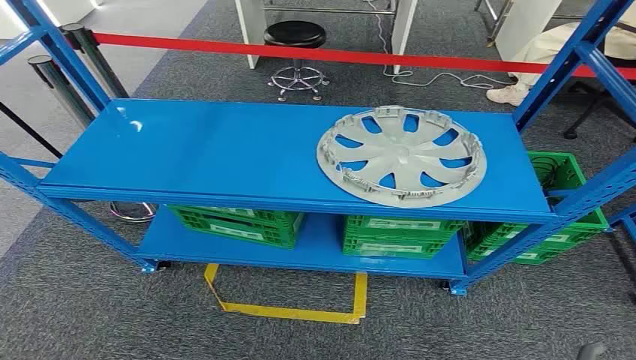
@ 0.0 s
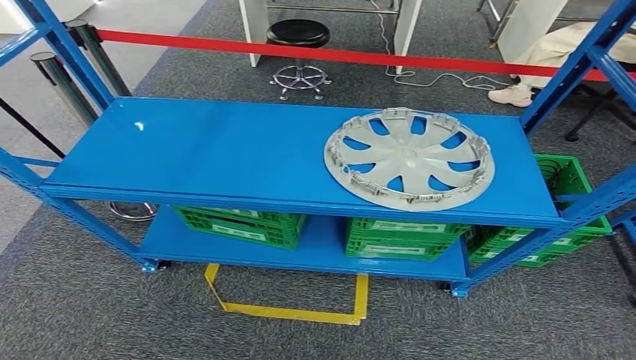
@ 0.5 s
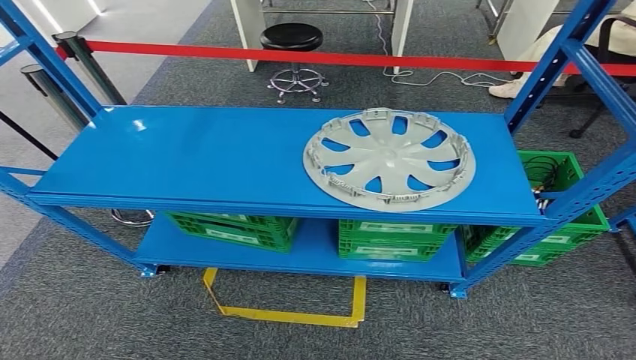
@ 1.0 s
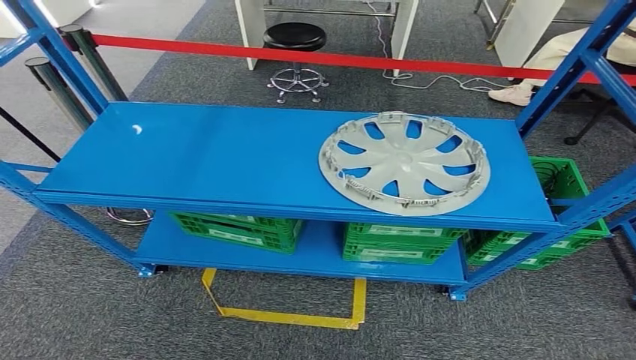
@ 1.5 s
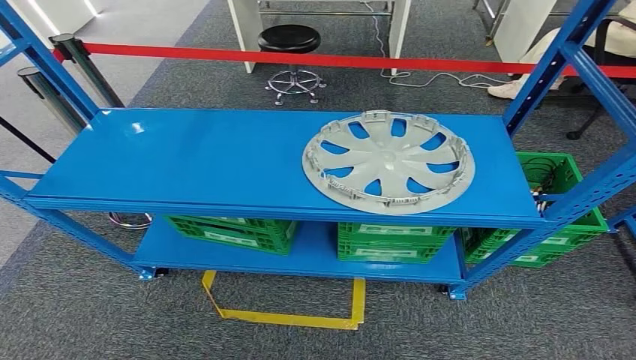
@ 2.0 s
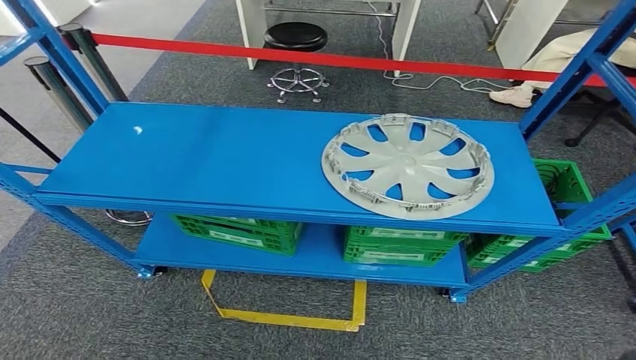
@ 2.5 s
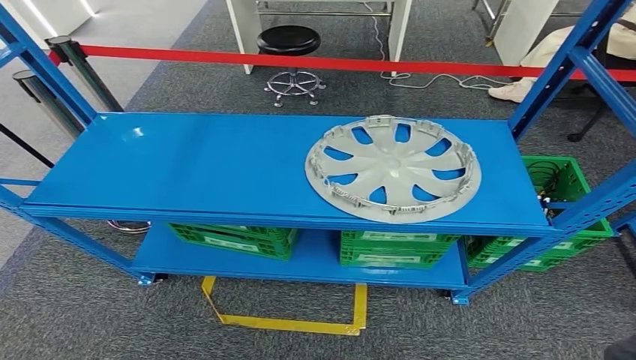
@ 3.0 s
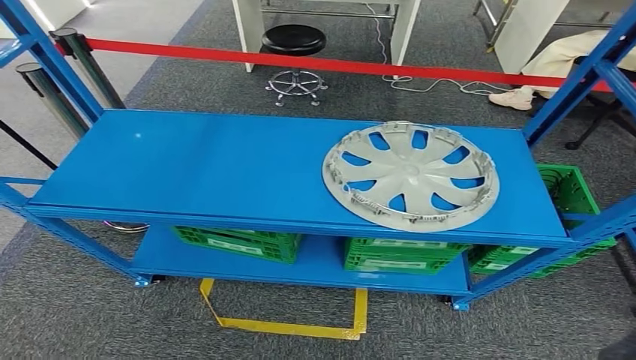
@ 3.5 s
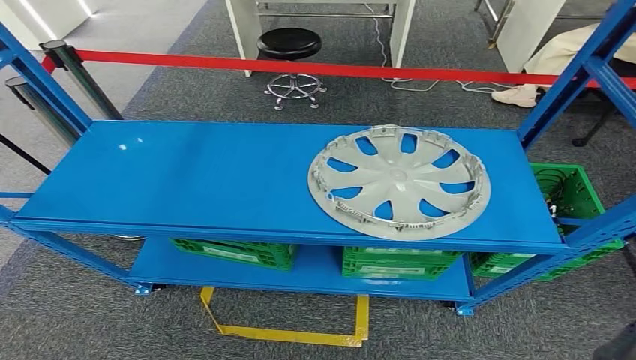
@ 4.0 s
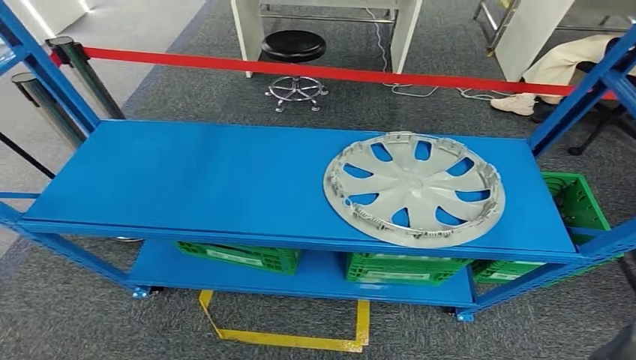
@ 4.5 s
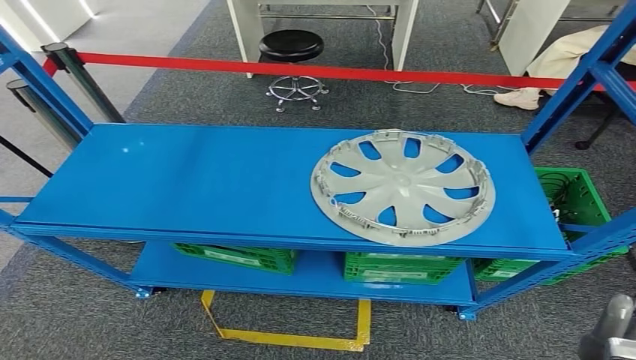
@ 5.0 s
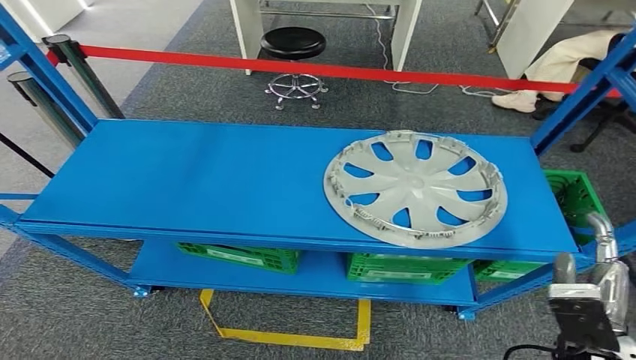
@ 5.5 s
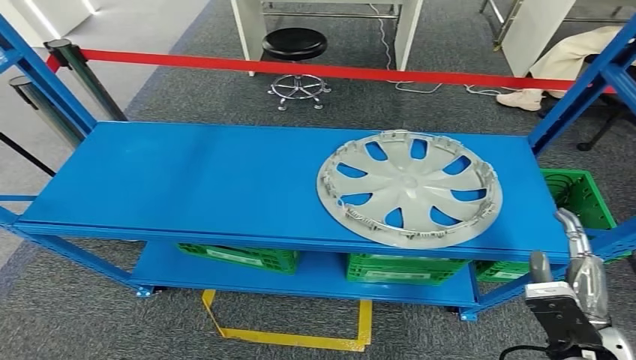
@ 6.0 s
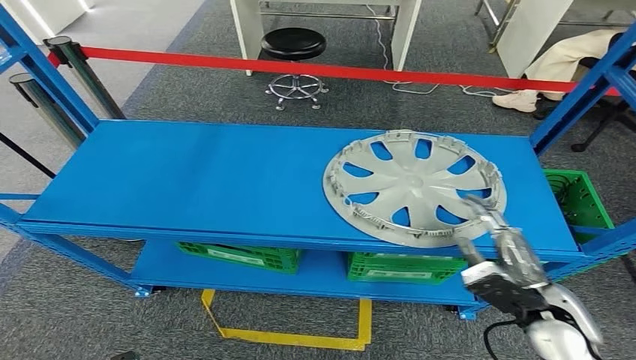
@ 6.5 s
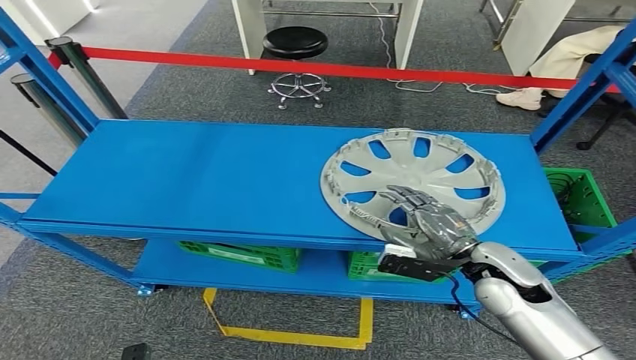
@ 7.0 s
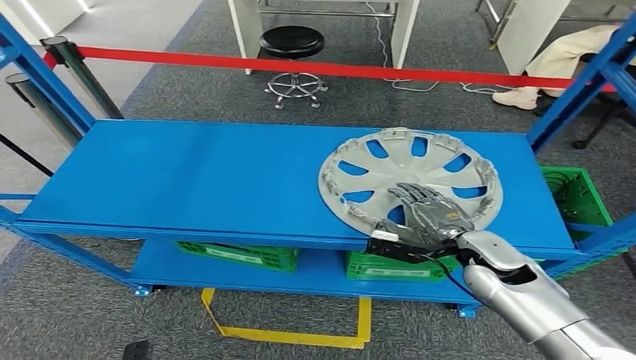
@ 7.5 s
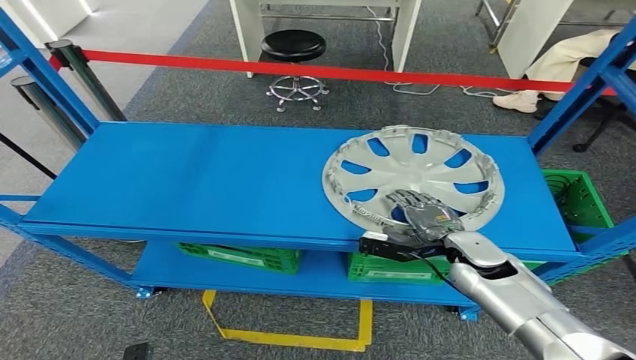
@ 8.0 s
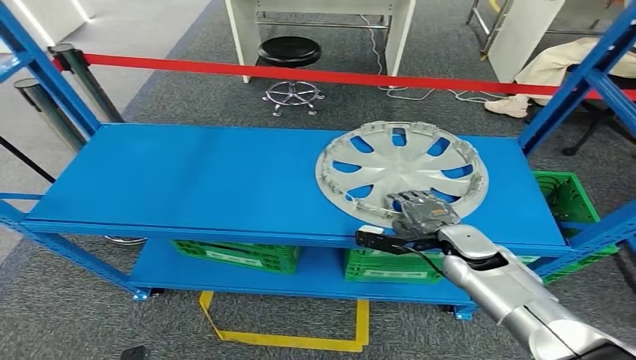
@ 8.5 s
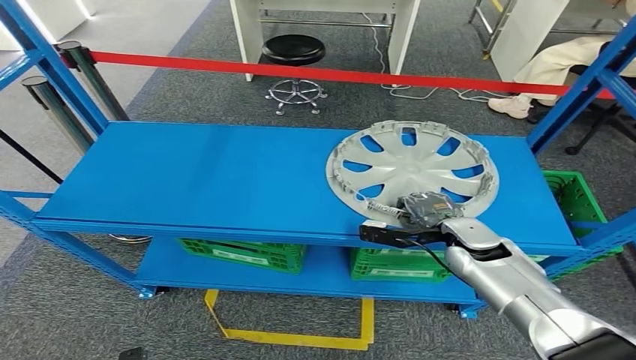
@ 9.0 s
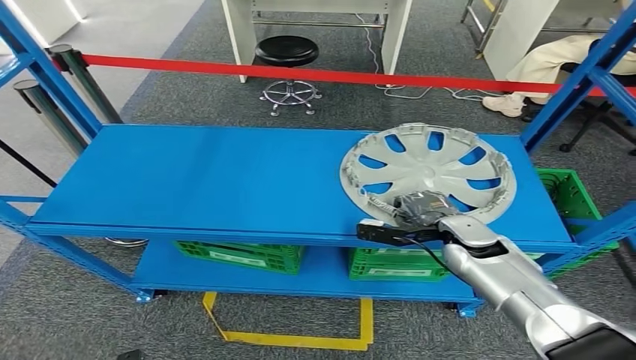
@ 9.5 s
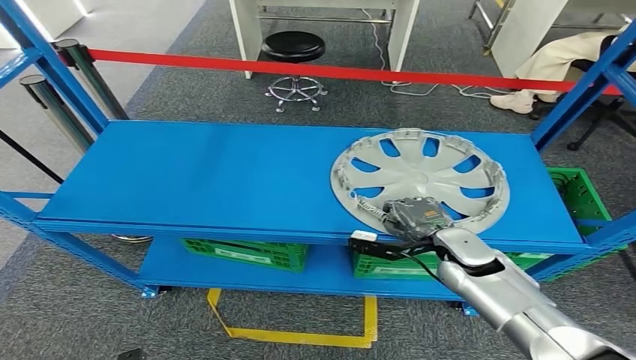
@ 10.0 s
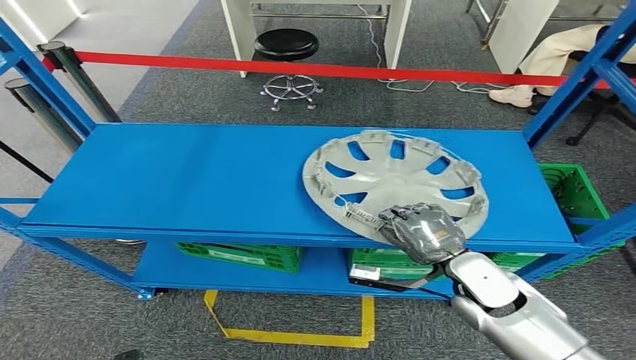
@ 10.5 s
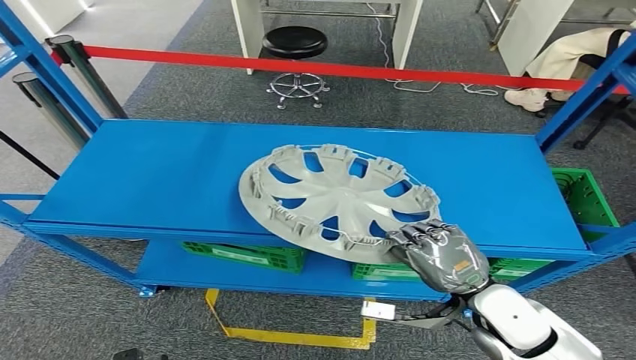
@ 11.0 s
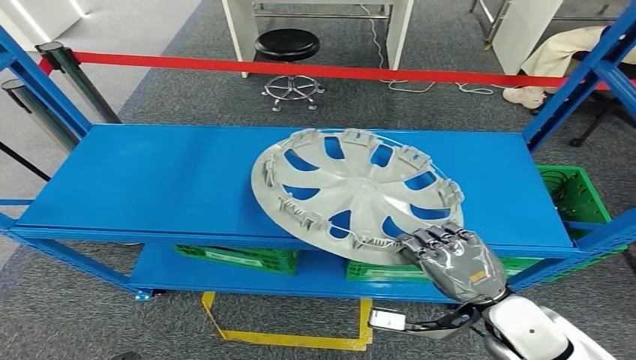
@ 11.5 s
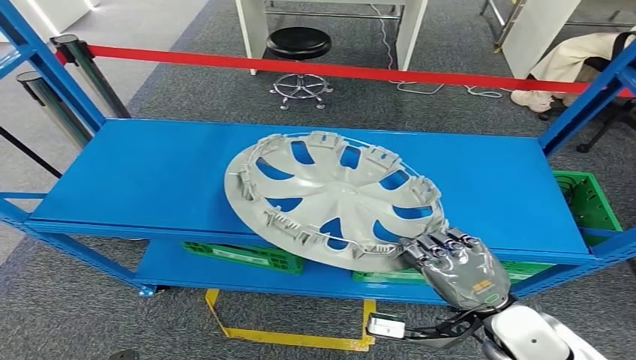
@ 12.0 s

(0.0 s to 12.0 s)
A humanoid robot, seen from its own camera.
Step, 0.0 s - 12.0 s: Pick up the small component from the shelf.
6.0 s - 8.0 s: The right hand travels forward by approximately 20 cm.
8.0 s - 10.0 s: There are only small adjustments of the hands.

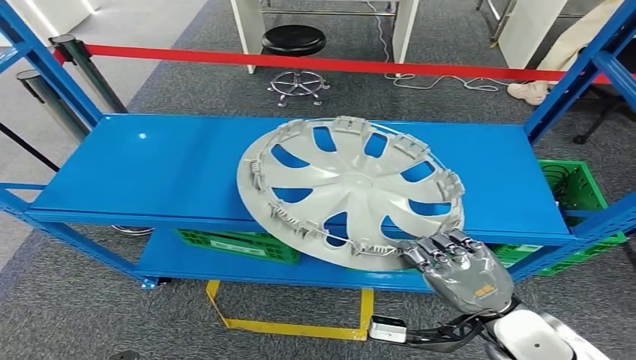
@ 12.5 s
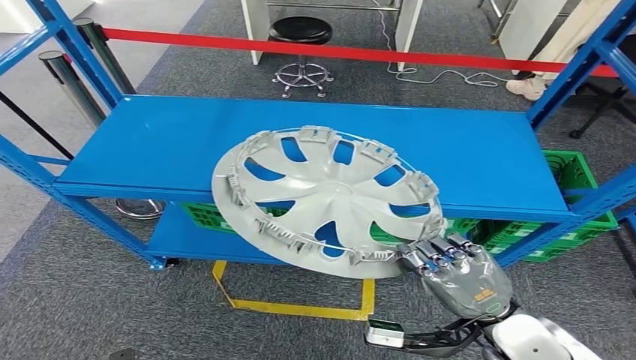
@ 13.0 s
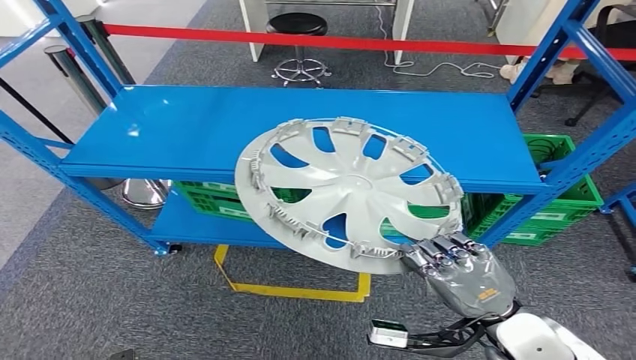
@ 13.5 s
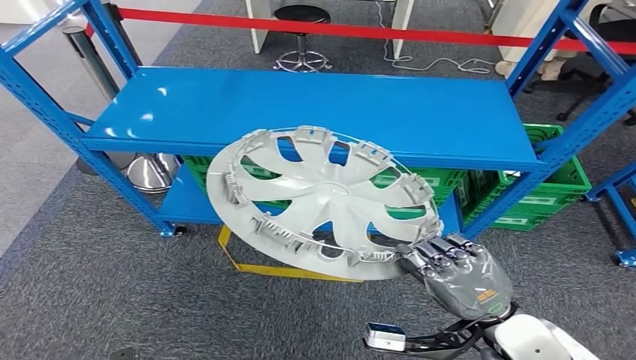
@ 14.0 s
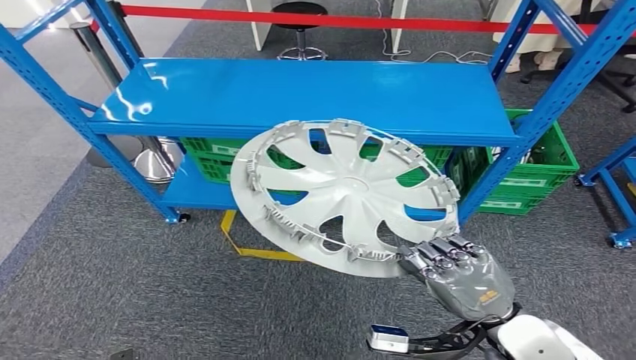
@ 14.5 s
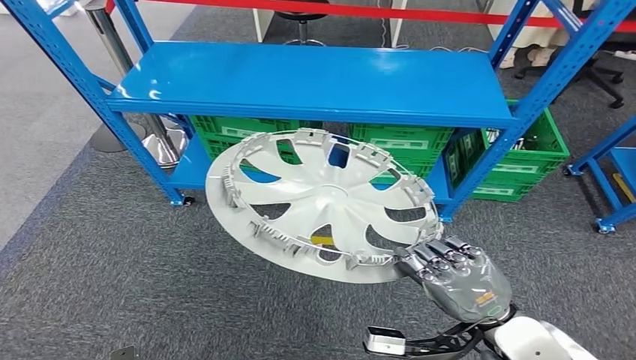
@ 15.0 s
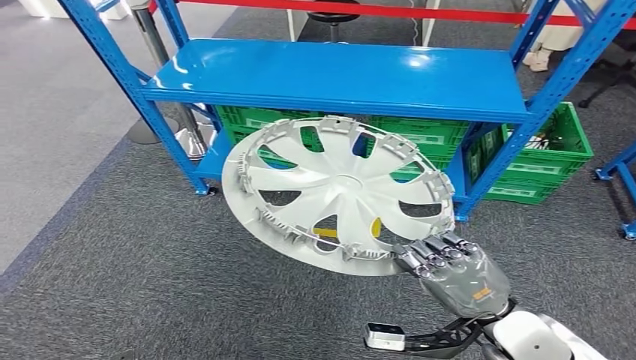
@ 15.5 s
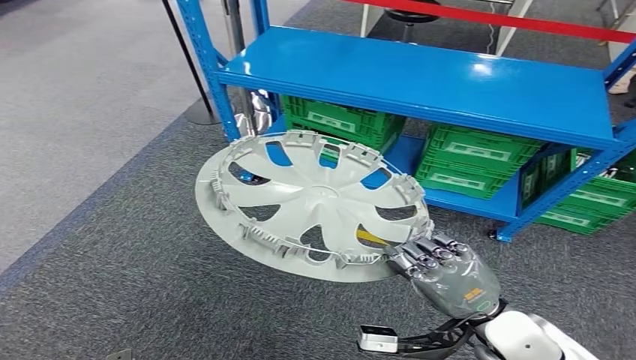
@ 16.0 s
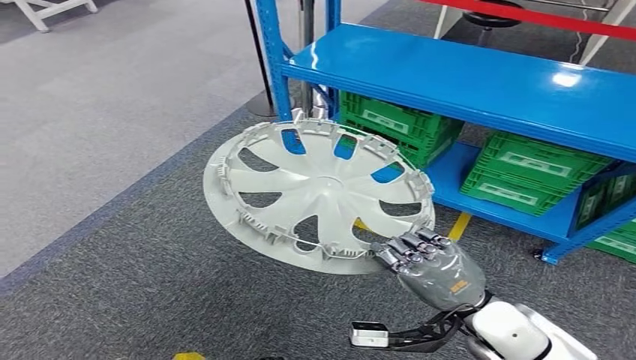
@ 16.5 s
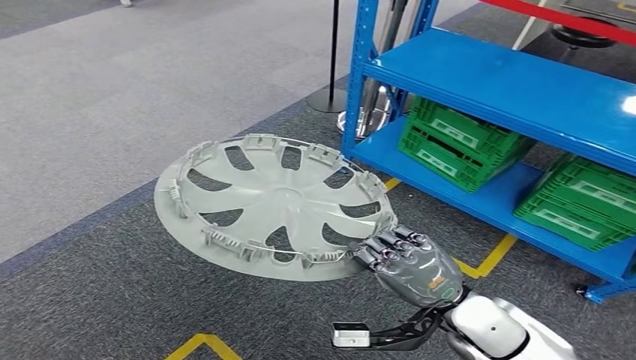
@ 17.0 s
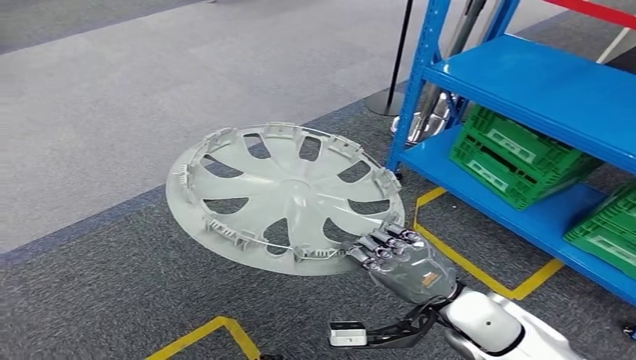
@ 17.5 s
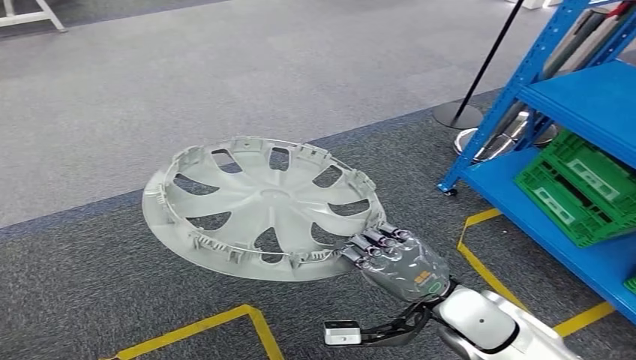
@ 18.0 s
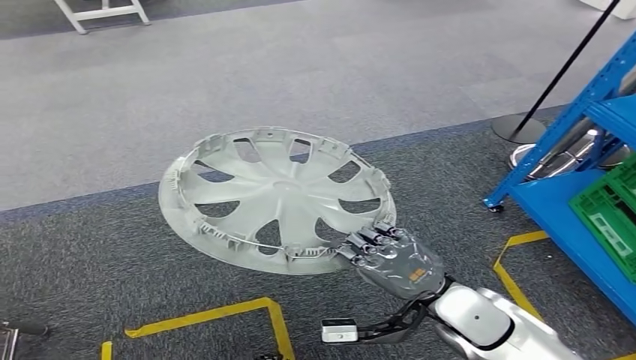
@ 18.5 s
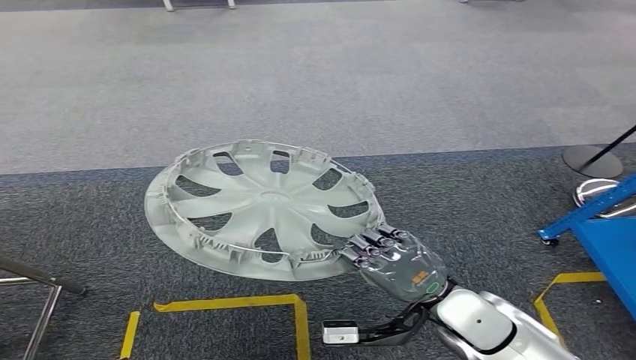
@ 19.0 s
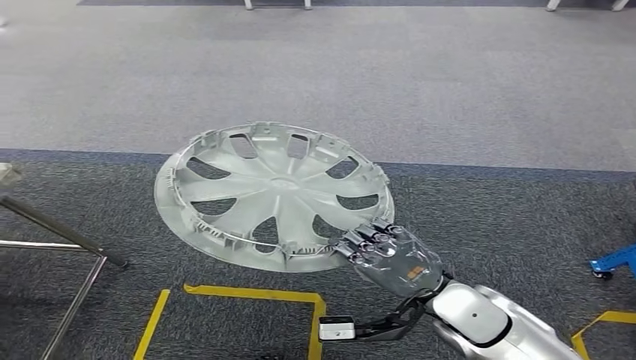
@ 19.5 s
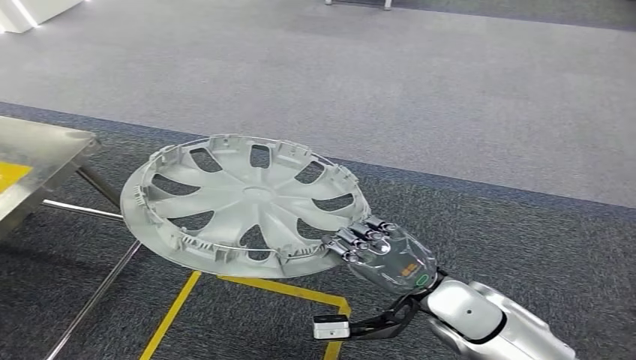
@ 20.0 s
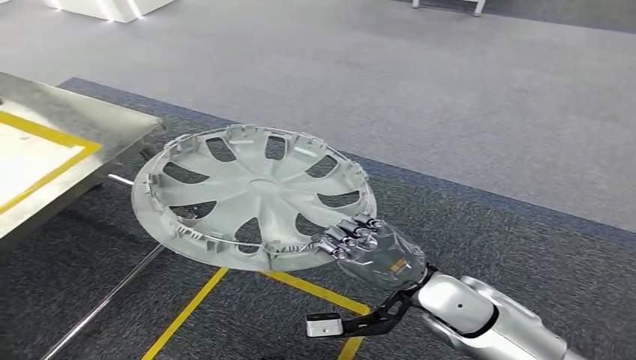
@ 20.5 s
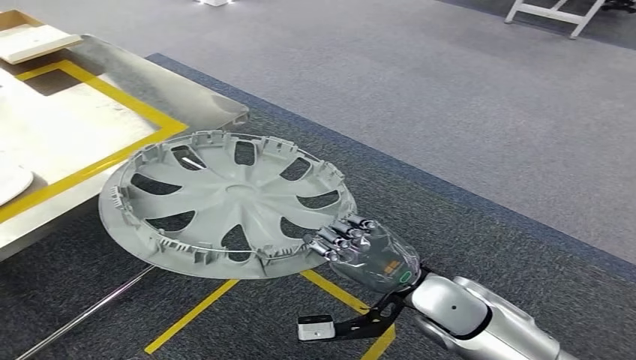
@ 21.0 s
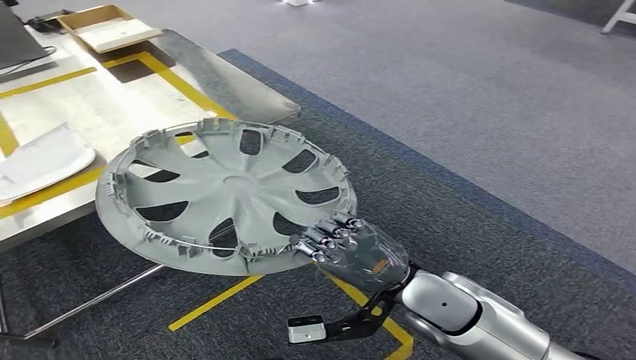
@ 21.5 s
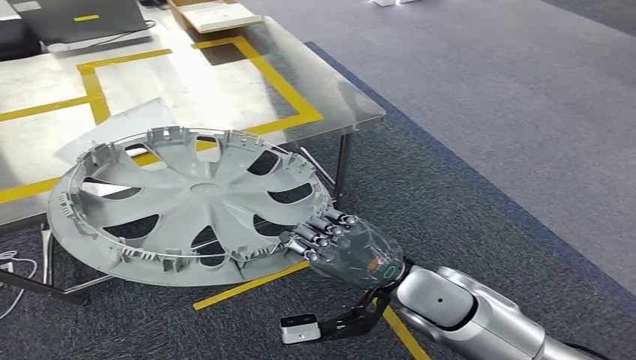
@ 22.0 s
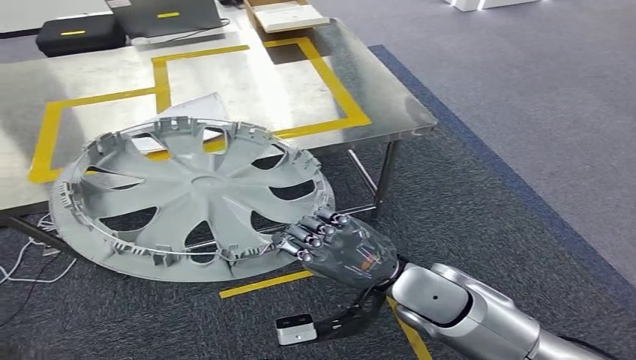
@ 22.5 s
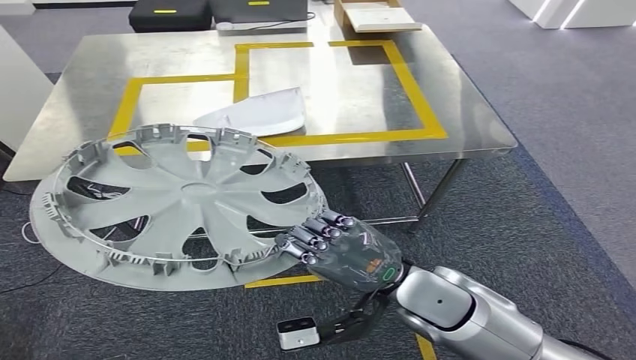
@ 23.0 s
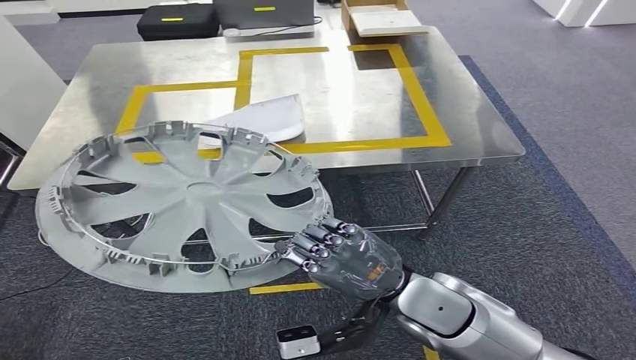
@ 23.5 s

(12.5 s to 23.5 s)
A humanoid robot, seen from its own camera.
Step, 12.5 s - 23.0 s: Move the small component to the workbench.
